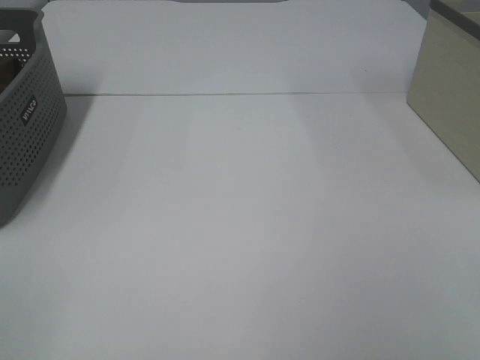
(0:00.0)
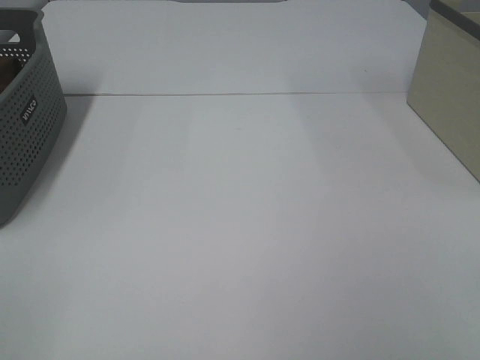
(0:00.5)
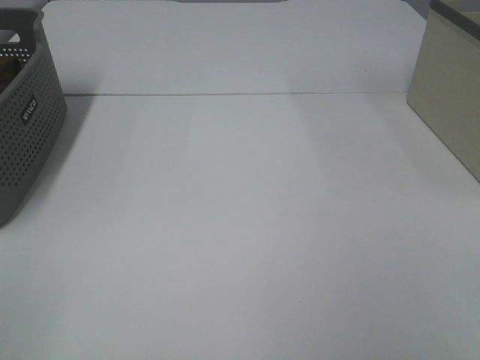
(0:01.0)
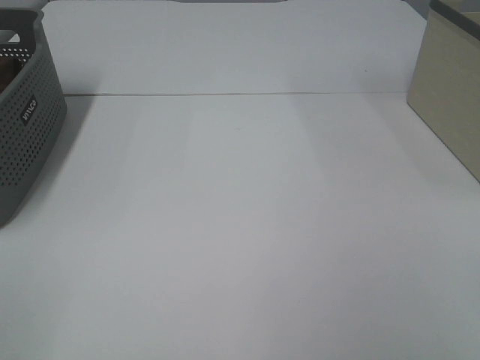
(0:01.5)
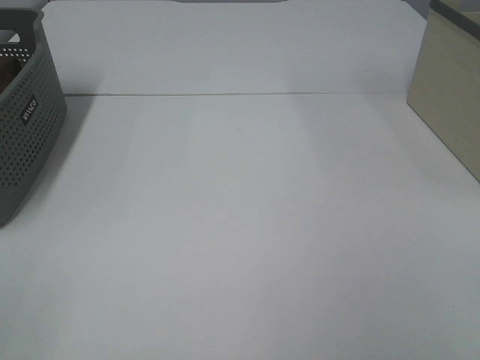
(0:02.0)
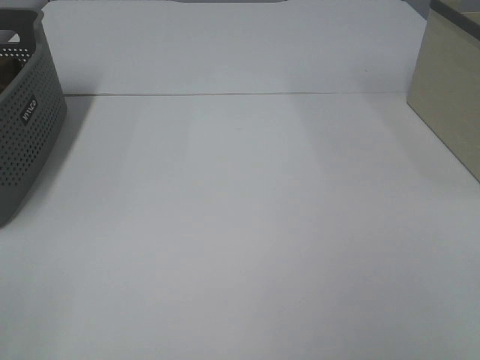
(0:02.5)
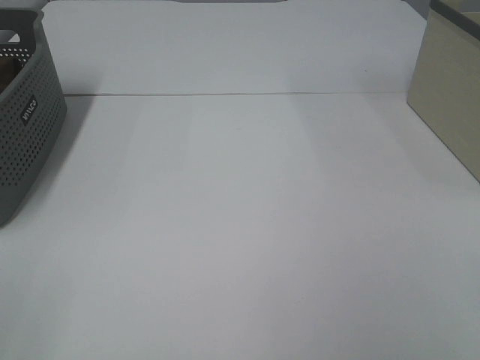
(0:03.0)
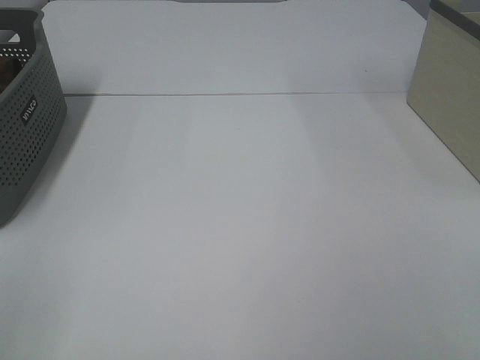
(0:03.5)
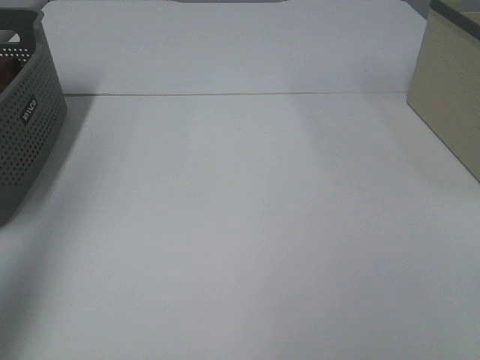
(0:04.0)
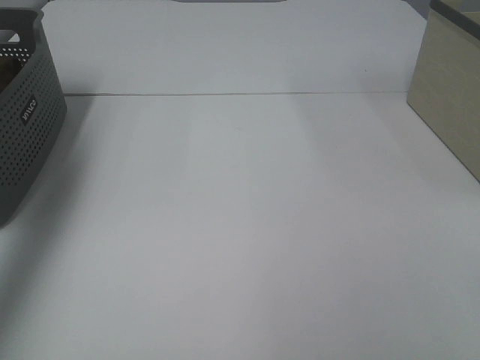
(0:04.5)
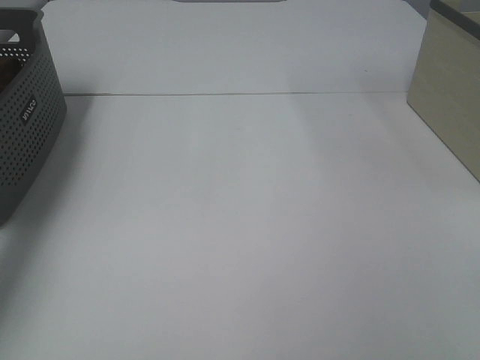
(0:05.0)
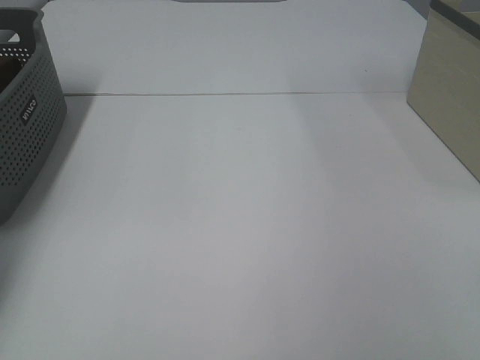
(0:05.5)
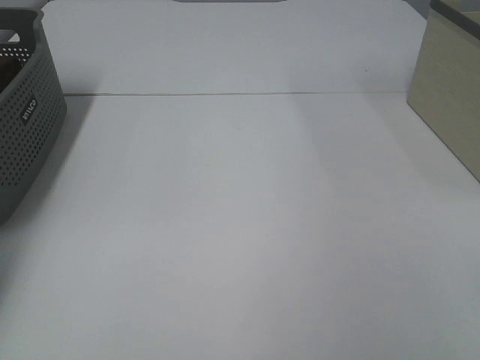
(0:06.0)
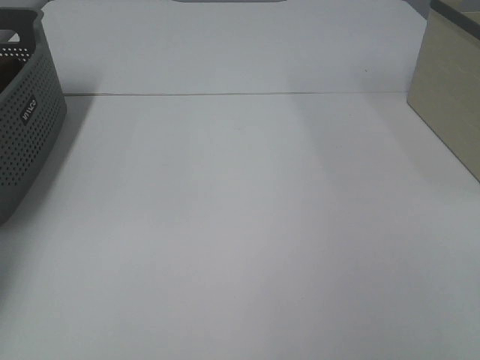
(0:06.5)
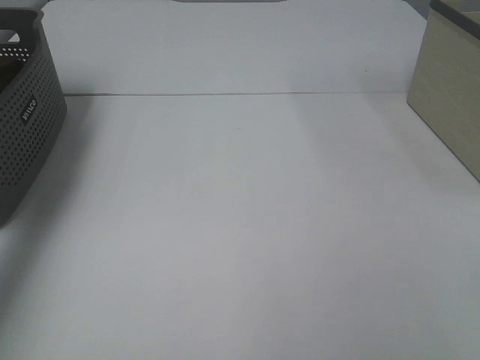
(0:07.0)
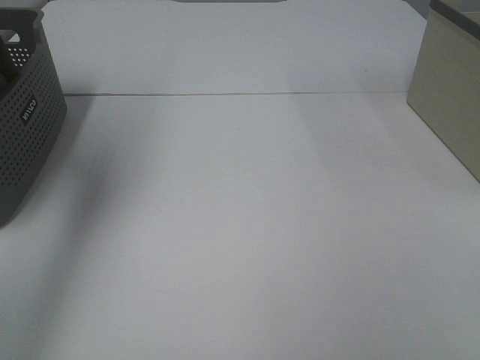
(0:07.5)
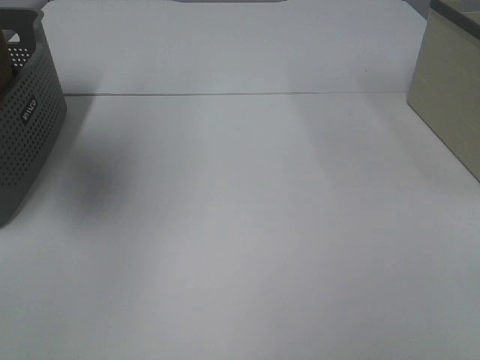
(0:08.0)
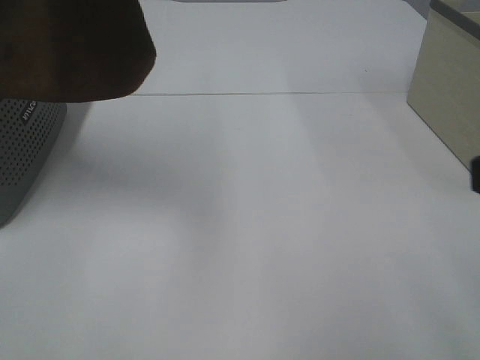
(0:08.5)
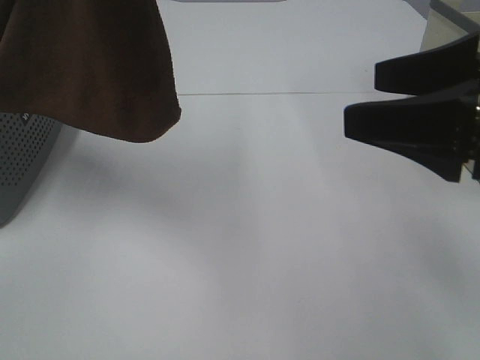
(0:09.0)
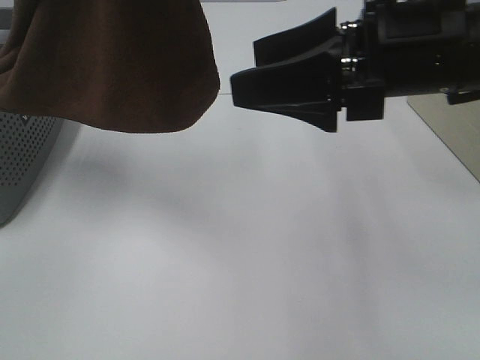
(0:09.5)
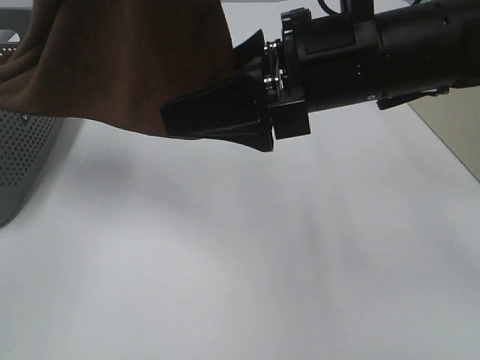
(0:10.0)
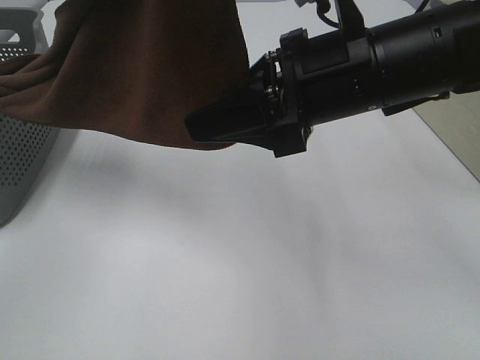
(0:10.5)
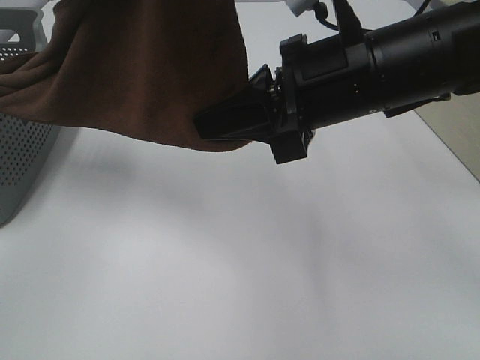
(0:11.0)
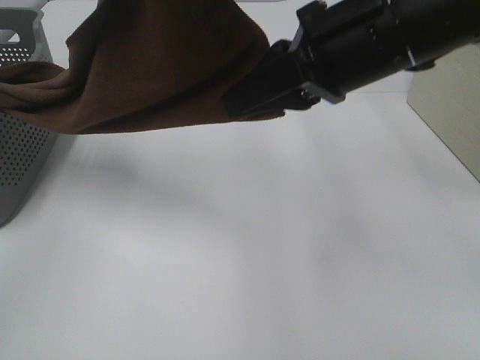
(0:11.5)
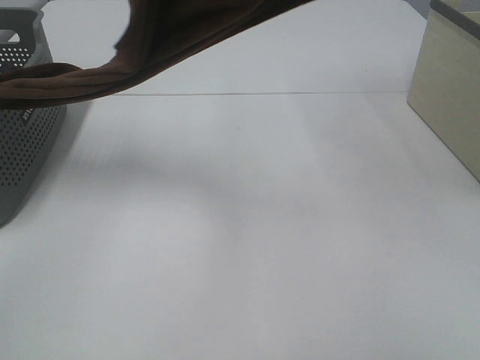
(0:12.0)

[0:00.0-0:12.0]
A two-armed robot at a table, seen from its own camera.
Task of the whole recording: Remove the towel and place it.
Step, 0:08.0 to 0:11.5: Right hand: grab a corner of the brown towel and straighten it.
0:00.0 to 0:02.0: Both grippers stay about where they are.
0:02.0 to 0:04.0: The left gripper moves forward and upward, about 20 cm.
0:04.0 to 0:06.0: The left gripper shifts some 35 cm forward and downward, and closes.
0:06.0 to 0:08.0: The left gripper heads upward, to the right and backward, covering some 40 cm.
0:08.0 to 0:10.0: The left gripper travels to the right and backward by some 15 cm. The right gripper travels forward and to the left by some 30 cm.
0:10.0 to 0:12.0: The right gripper heads upward, covering approximately 15 cm, and closes.

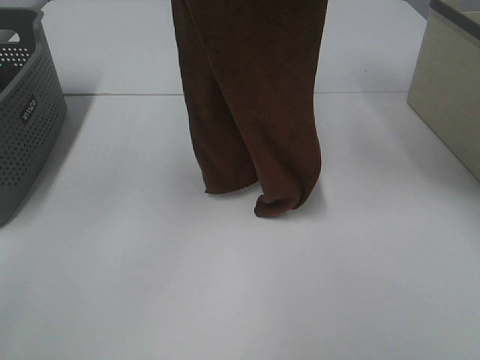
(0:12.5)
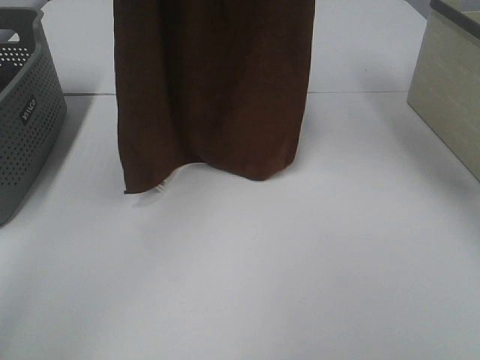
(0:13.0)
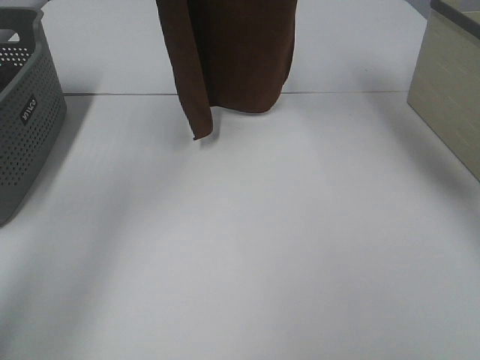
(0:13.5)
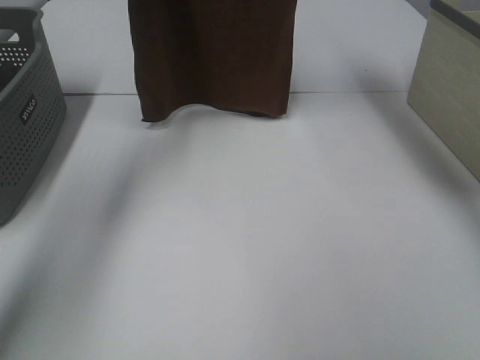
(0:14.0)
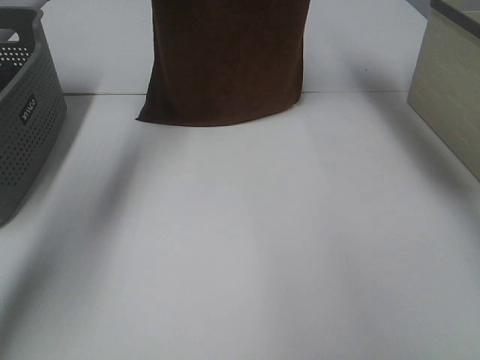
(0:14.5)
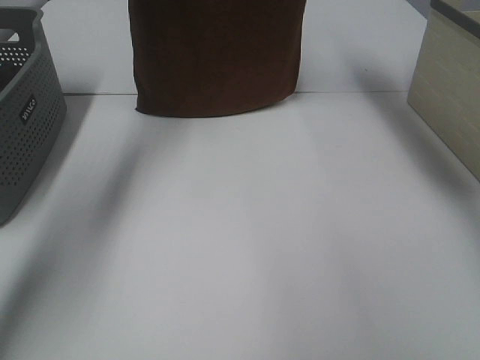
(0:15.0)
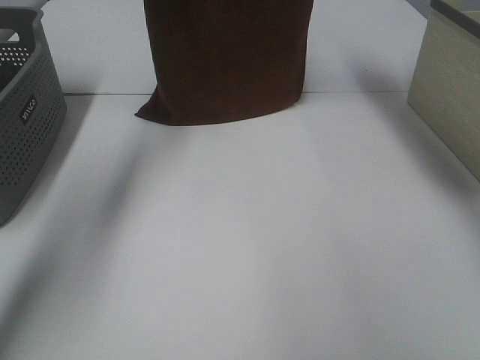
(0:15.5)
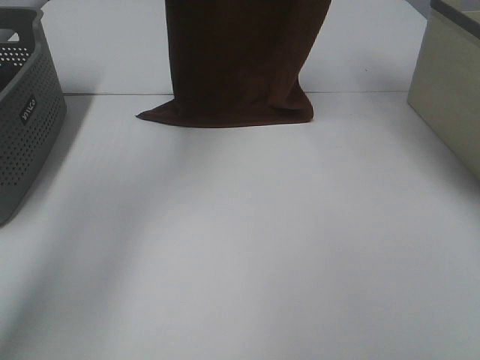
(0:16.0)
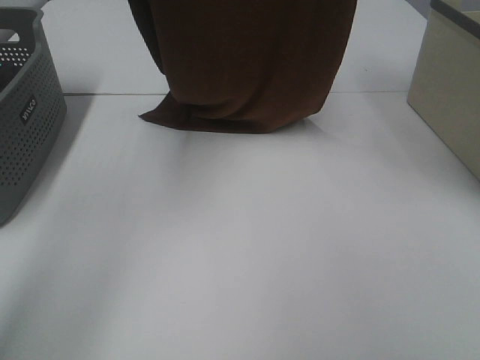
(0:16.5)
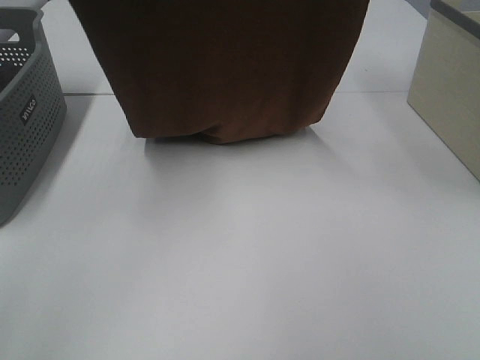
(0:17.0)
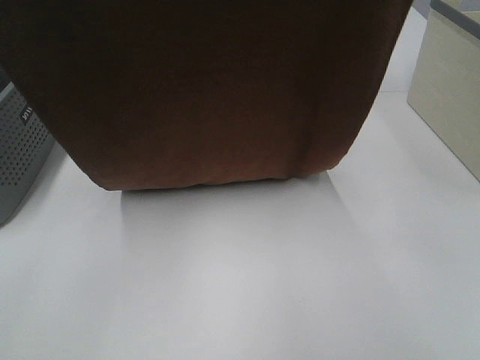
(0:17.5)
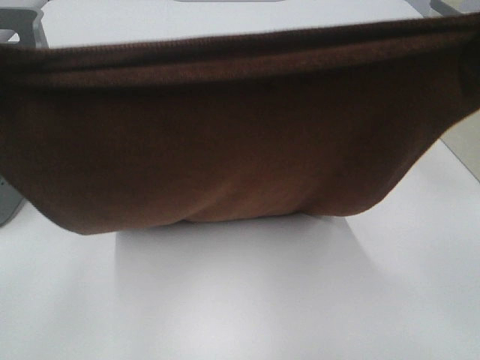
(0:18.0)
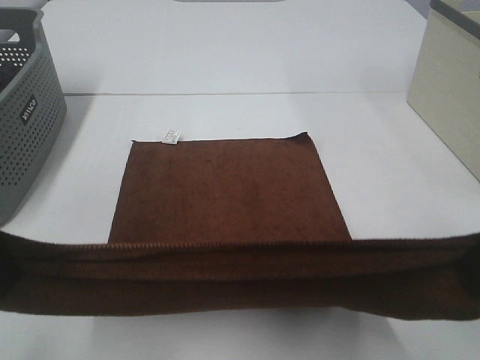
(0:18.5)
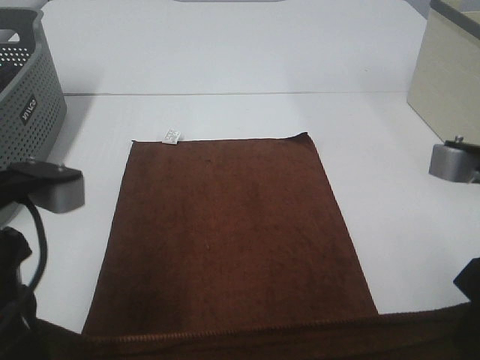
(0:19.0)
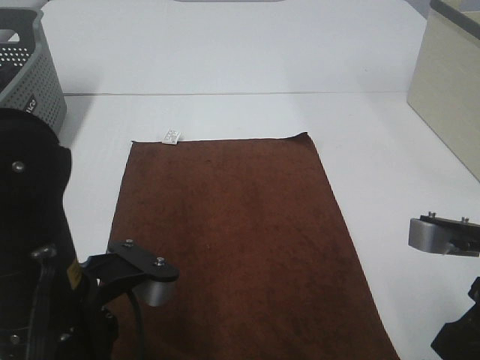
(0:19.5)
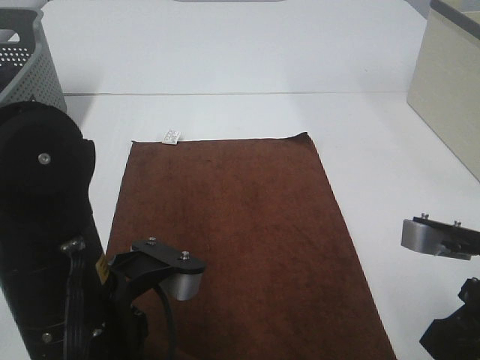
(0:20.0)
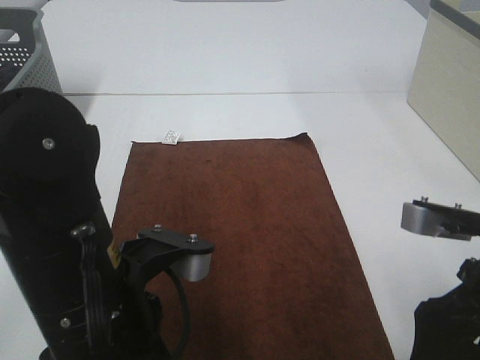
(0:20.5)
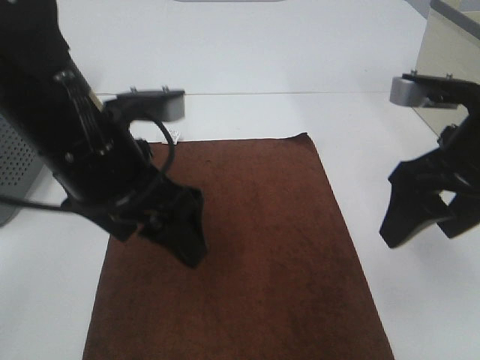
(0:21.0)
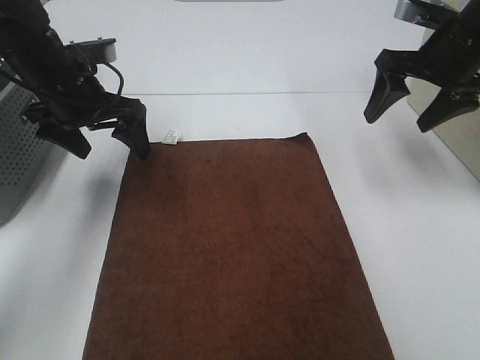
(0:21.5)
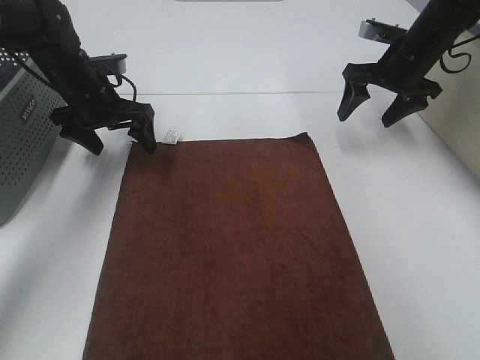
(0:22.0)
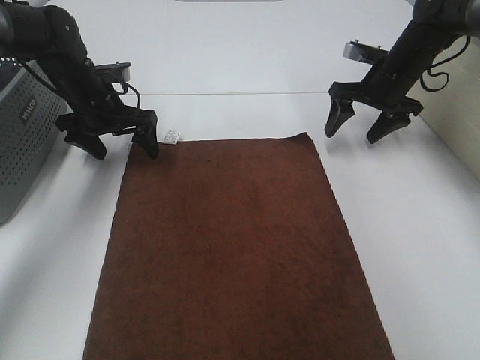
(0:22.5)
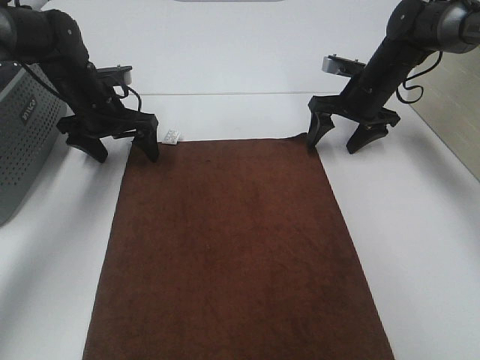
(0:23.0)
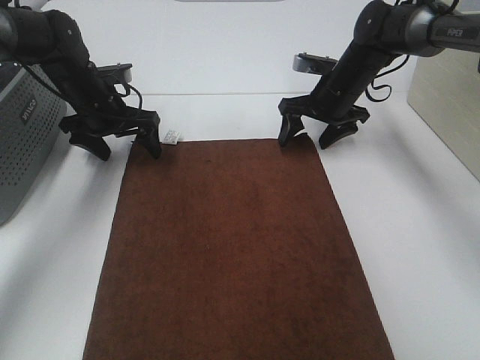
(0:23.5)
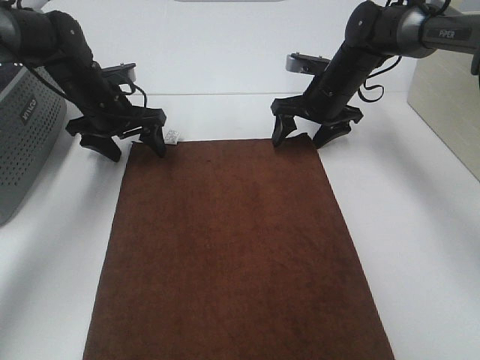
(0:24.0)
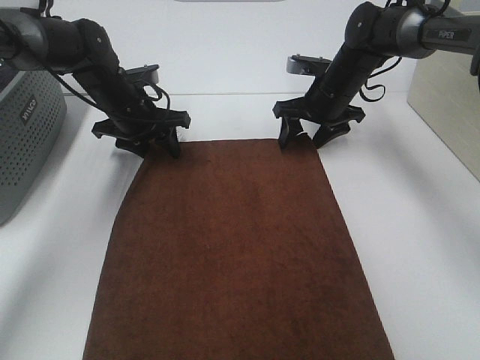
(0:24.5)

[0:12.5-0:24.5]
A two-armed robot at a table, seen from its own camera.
Task of the whole recording: Remove the towel and place it.
Step, 0:12.5 to 0:16.0: Left hand: spread the brown towel flat on the table.
Step, 0:12.5 to 0:16.0: Right hand: spread the brown towel flat on the table.
0:12.5 to 0:14.5: Both grippers move forward and downward, about 20 cm.
0:14.5 to 0:16.5: The left gripper is displaced backward and upward by roughly 15 cm, while the right gripper travels backward by some 15 cm.
0:16.5 to 0:18.5: Both grippers move backward and downward, approximately 30 cm.
0:18.5 to 0:20.5: The right gripper moves downward, roughly 10 cm, and opens up; the left gripper moves to the right and downward, some 15 cm, and opens up.
0:20.5 to 0:22.5: Both grippers move forward, approximately 35 cm.
0:22.5 to 0:24.5: The left gripper closes. The right gripper goes about 10 cm to the left.

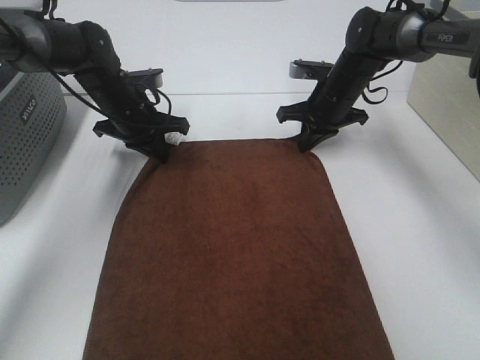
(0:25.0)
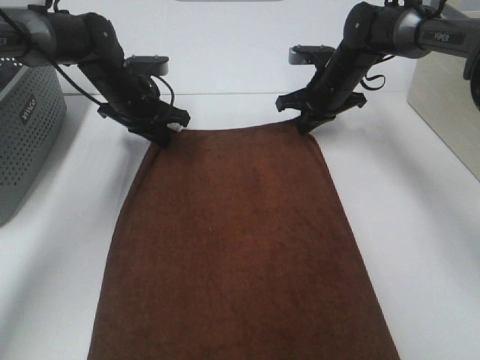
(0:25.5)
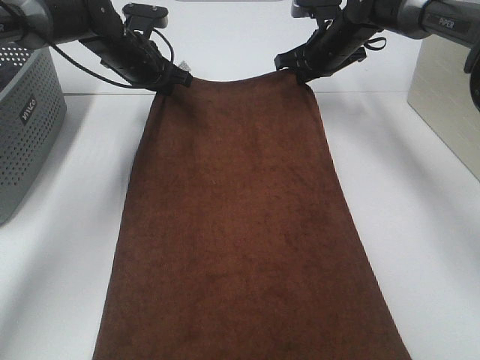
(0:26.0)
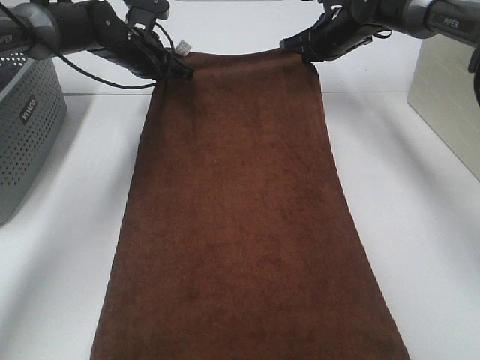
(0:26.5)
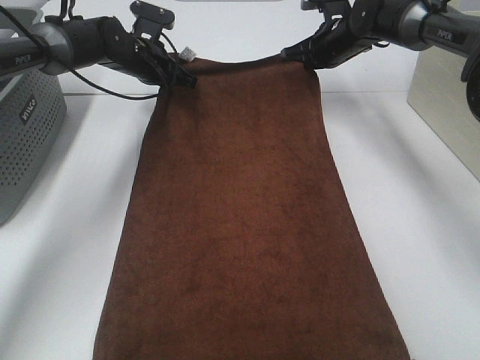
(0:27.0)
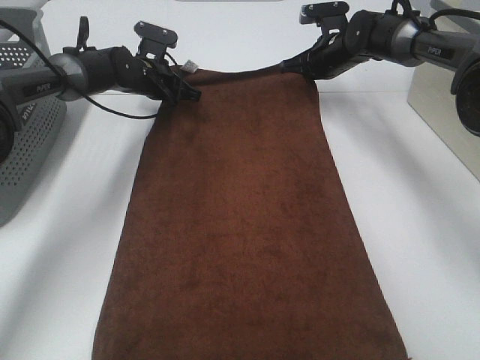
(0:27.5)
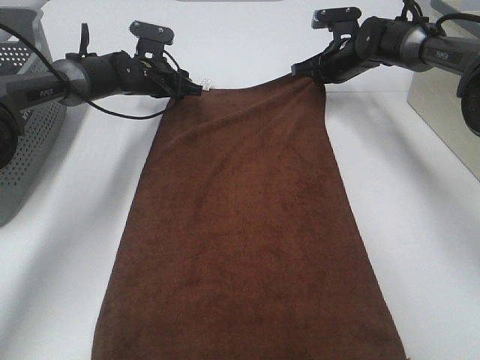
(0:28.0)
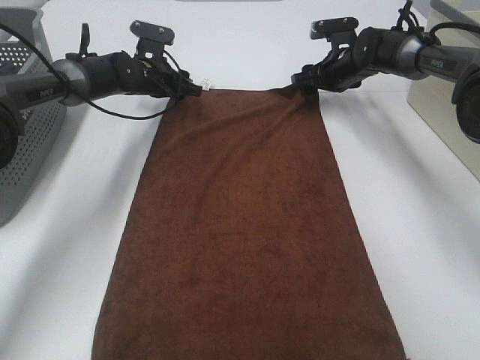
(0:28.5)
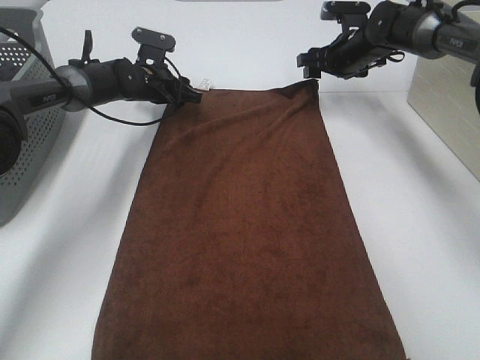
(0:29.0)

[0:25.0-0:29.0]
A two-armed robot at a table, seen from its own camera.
Task of the whole recording: Remove the towel and place it.
0:25.0 to 0:27.0: The left gripper moves forward, some 10 cm. Meanwhile the right gripper is displaced forward and upward by approximately 10 cm.
0:27.0 to 0:29.0: The right gripper opens up. The left gripper travels downward by some 5 cm, and opens.
